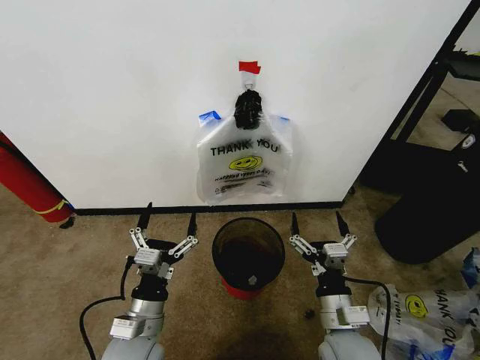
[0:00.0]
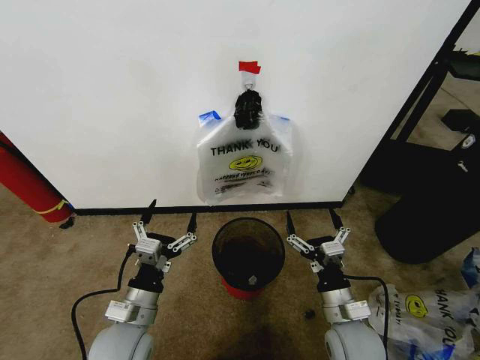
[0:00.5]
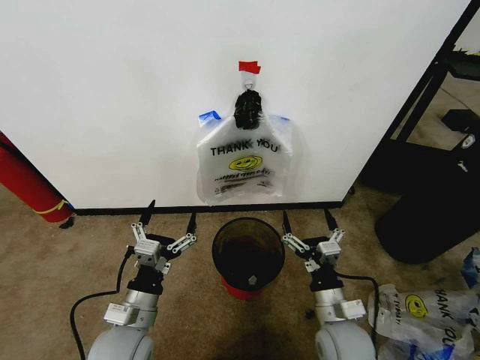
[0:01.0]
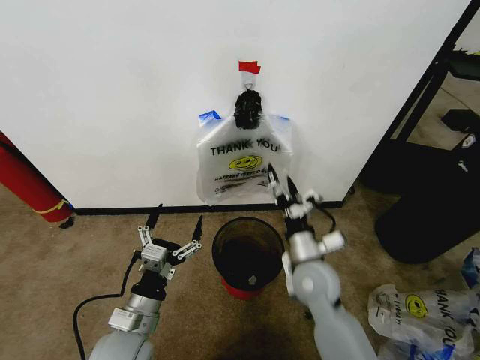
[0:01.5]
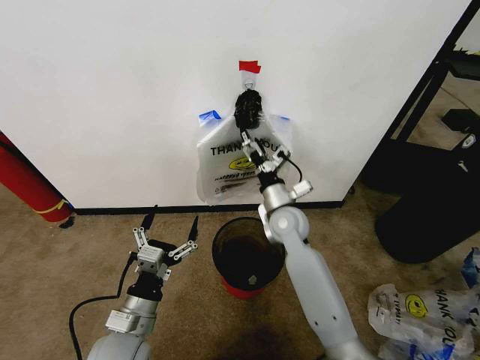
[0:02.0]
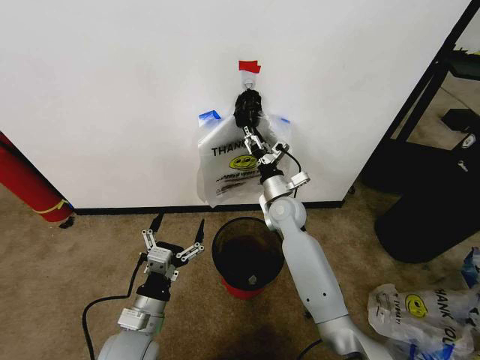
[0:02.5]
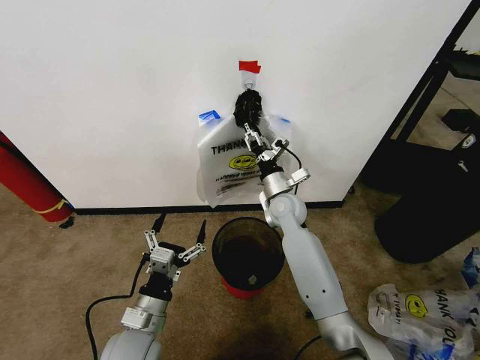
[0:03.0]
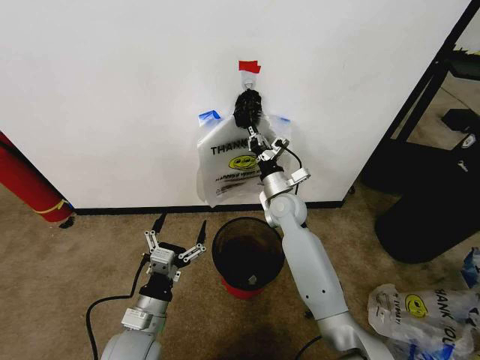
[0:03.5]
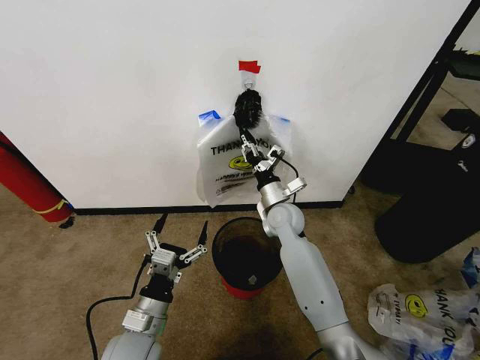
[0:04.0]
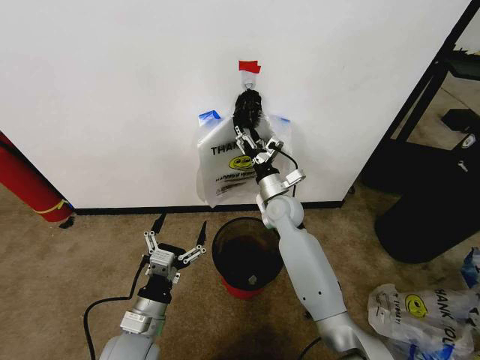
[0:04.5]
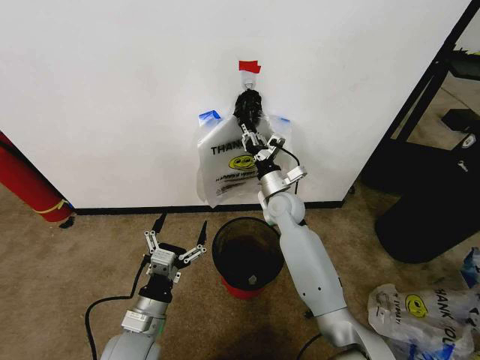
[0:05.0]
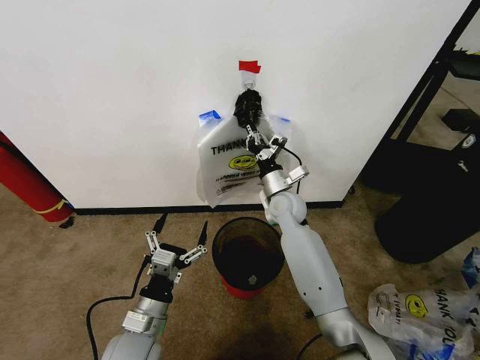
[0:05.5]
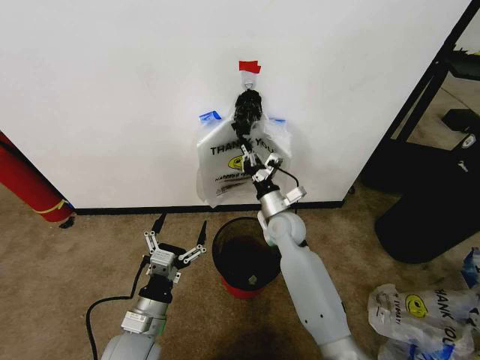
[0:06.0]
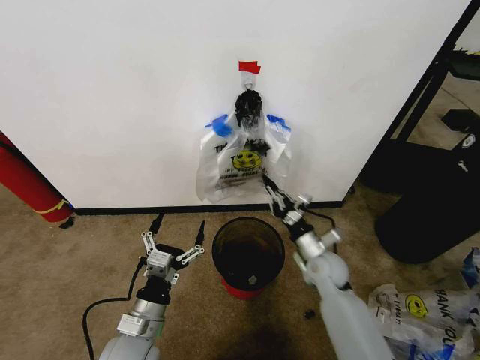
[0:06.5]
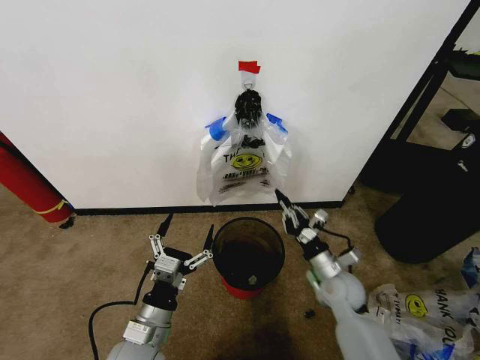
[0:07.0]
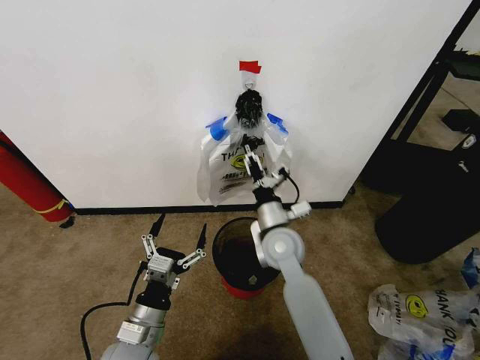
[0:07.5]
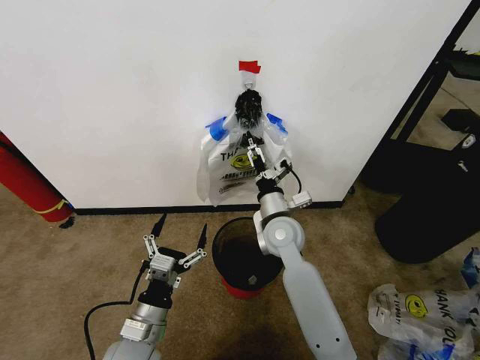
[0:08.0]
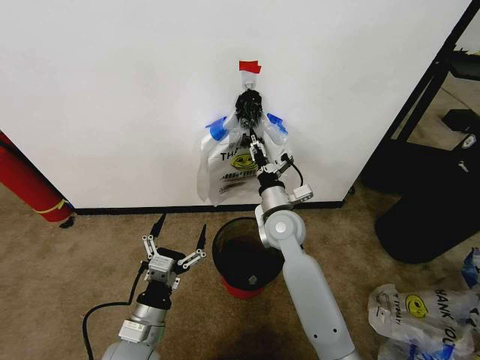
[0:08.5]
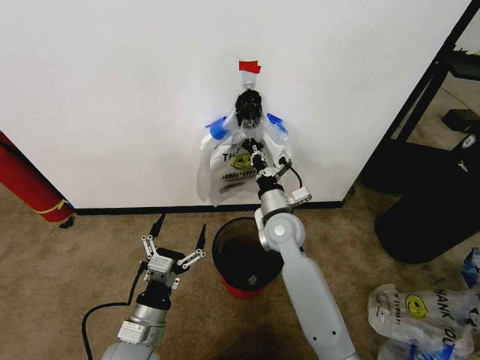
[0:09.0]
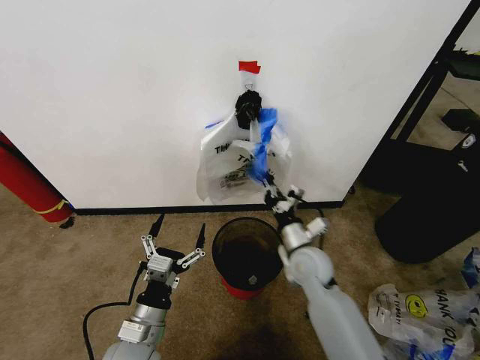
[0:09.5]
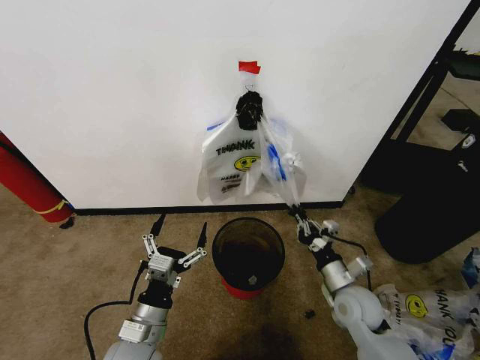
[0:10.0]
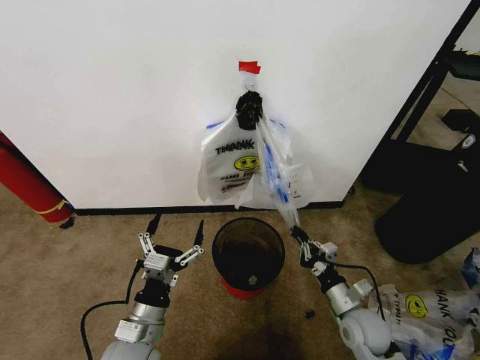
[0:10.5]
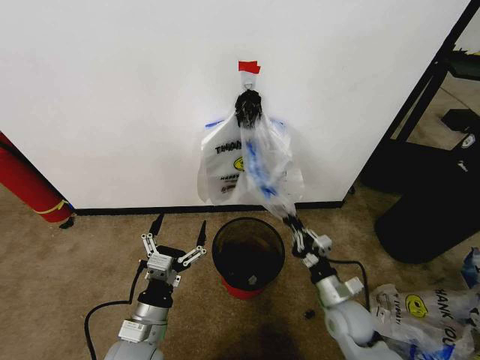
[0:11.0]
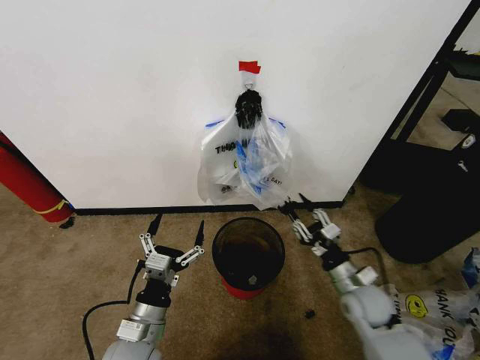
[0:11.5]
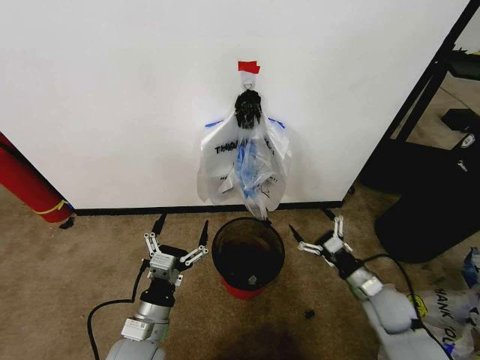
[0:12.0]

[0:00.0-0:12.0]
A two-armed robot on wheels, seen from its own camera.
Task of the whole recording: Pick up the garbage bag from the wall and place it over the trash bin.
0:02.0 to 0:04.0: The right gripper closes its fingers.
0:04.0 to 0:06.0: The right gripper opens, then closes once more.
0:06.0 to 0:08.0: The right gripper reaches approximately 10 cm to the right, then returns, and opens its fingers.
0:08.0 to 0:10.0: The right gripper heads to the right, backward and downward, covering some 25 cm, and closes.
0:10.0 to 0:12.0: The right gripper shifts some 5 cm to the right, and opens.

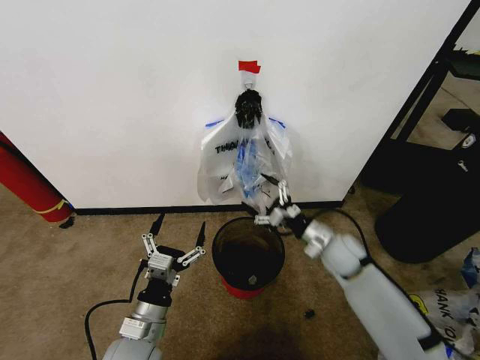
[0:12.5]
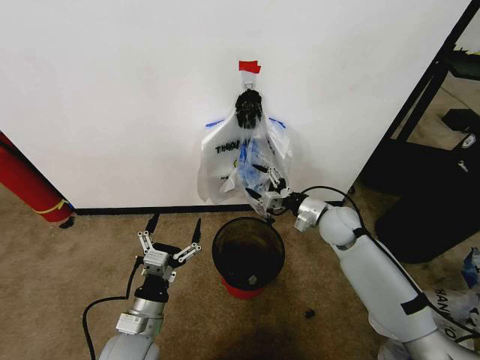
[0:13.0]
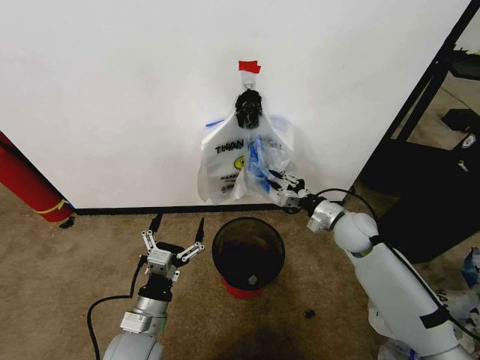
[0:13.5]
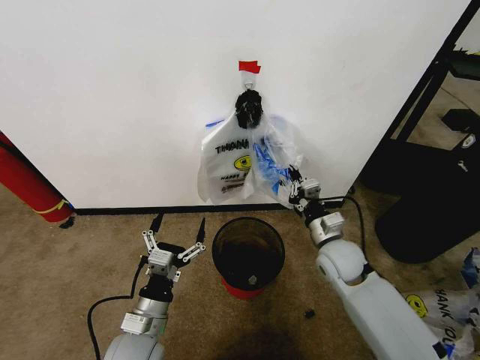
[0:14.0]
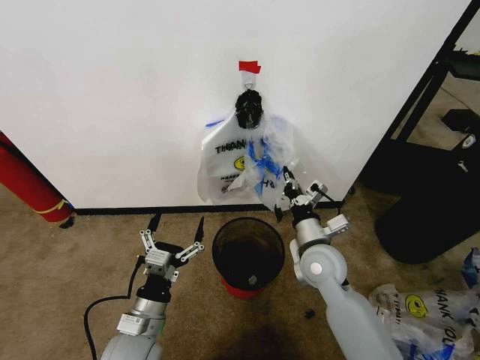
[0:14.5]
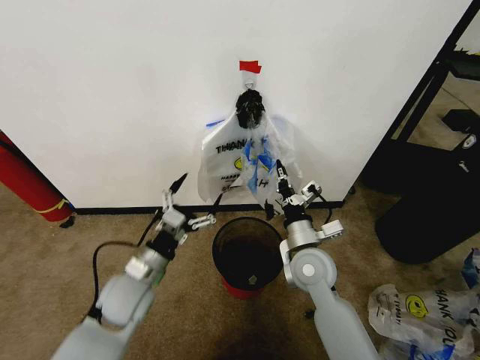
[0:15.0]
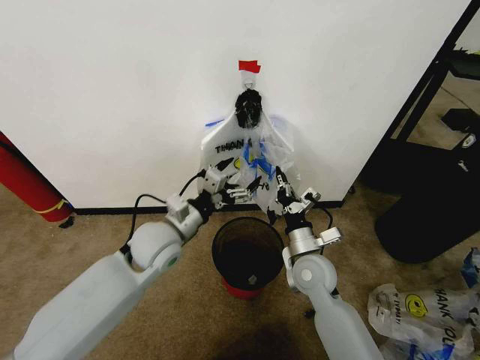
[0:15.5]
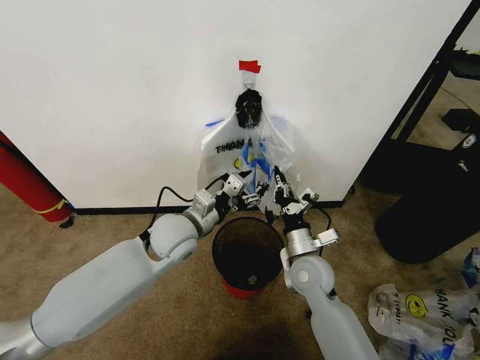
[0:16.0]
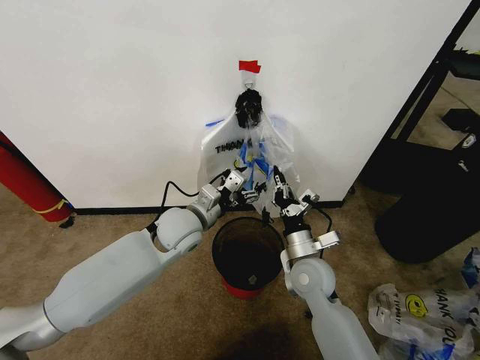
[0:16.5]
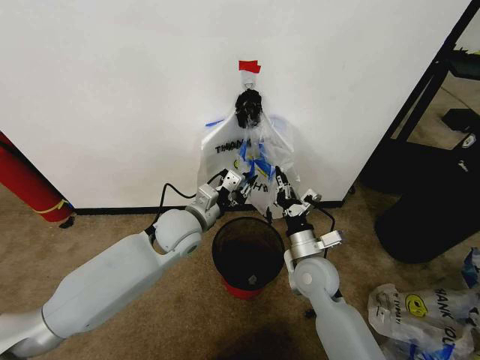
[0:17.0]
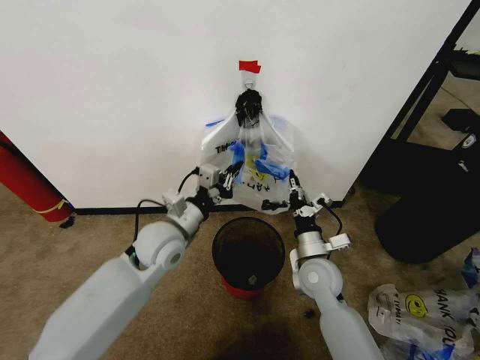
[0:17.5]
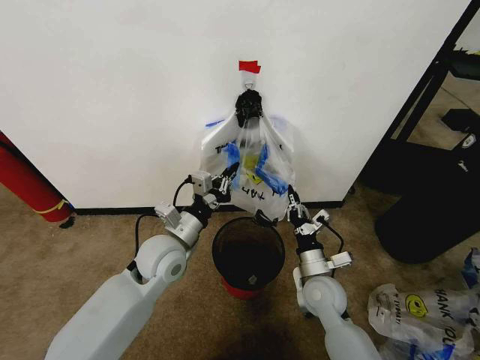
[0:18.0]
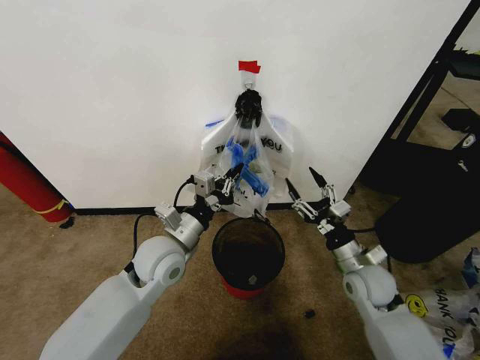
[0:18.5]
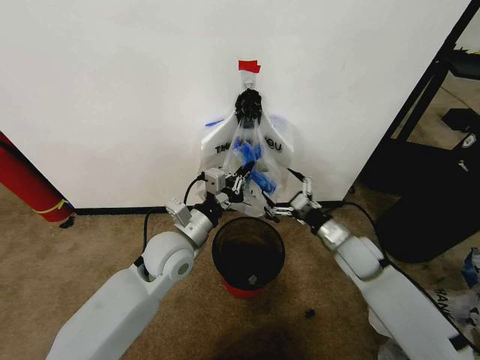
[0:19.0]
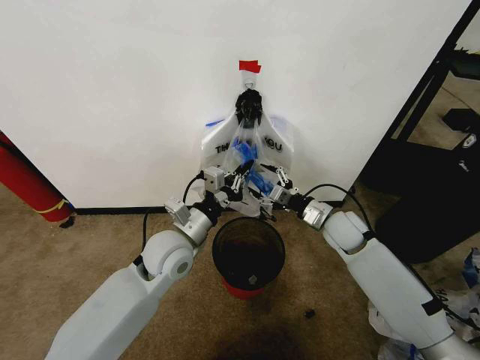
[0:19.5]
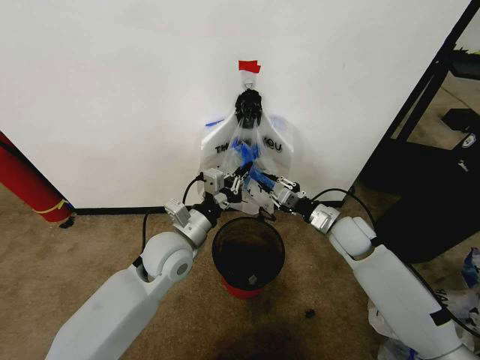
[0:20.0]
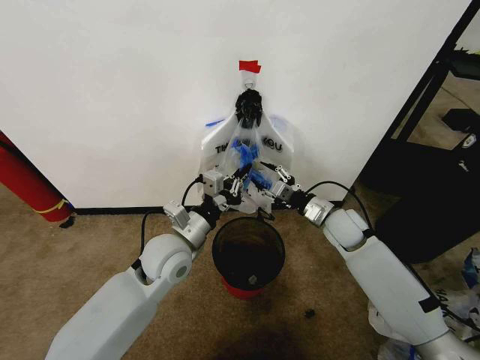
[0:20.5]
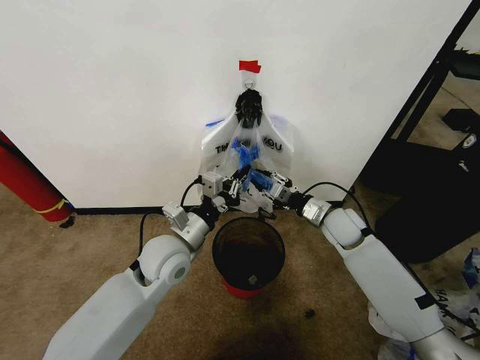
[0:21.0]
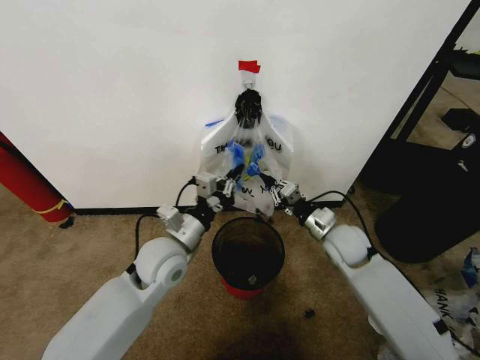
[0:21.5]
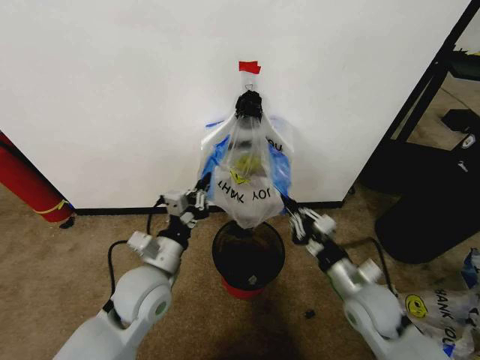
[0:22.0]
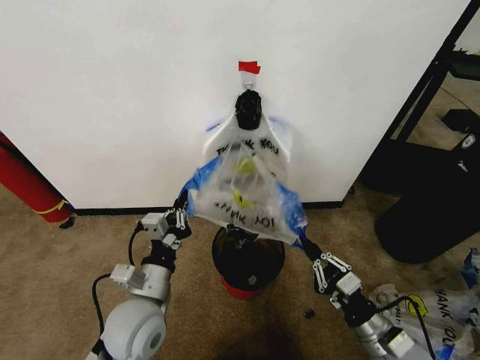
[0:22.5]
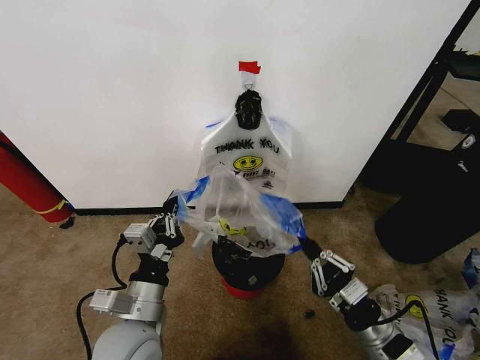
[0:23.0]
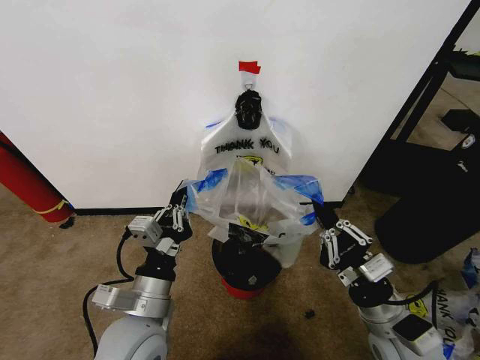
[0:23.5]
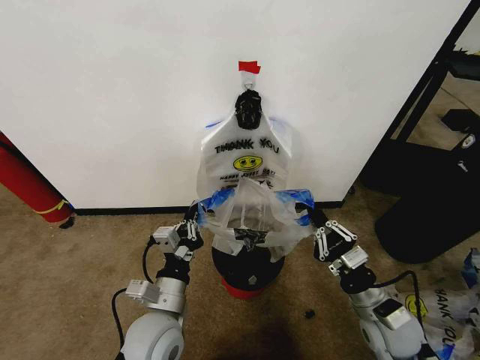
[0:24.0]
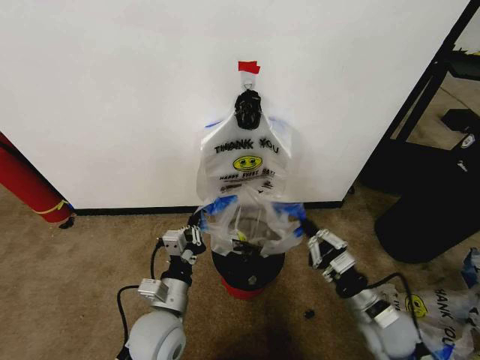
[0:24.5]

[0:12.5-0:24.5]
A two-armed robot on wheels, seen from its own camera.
Task of the whole recording: Pick up the garbage bag from the wall and place it over the trash bin.
0:12.5 to 0:14.5: The right gripper moves to the left and backward, some 10 cm, and closes its fingers.
0:14.5 to 0:16.5: The left gripper is displaced forward and upward by approximately 25 cm.
0:16.5 to 0:18.5: The right gripper shifts about 10 cm to the right, and opens, while the left gripper travels backward by approximately 5 cm, and closes its fingers.
0:18.5 to 0:20.5: The right gripper moves forward, roughly 15 cm, and opens, then closes again.
0:20.5 to 0:22.5: The left gripper shifts roughly 10 cm backward; the right gripper is displaced backward by roughly 25 cm, and closes.
0:22.5 to 0:24.5: The right gripper is displaced forward by approximately 5 cm. Meanwhile the left gripper heads downward, covering roughly 5 cm.

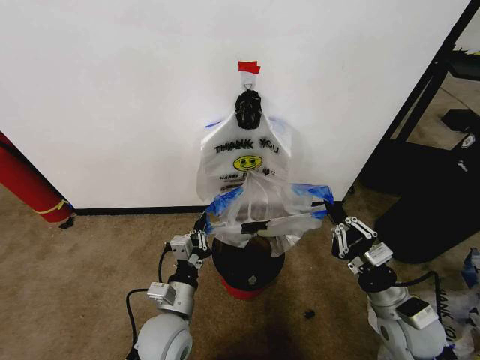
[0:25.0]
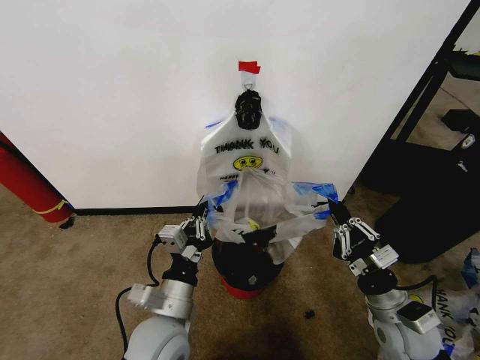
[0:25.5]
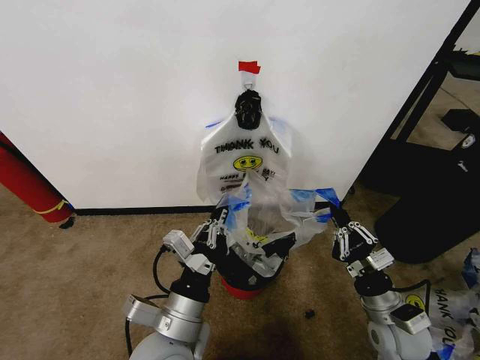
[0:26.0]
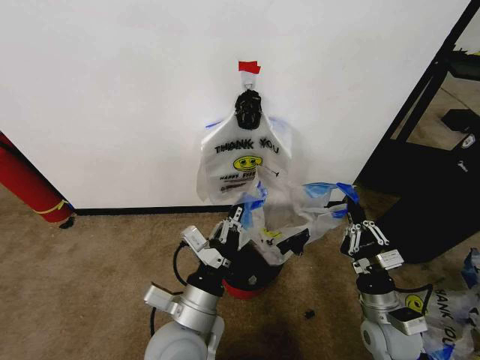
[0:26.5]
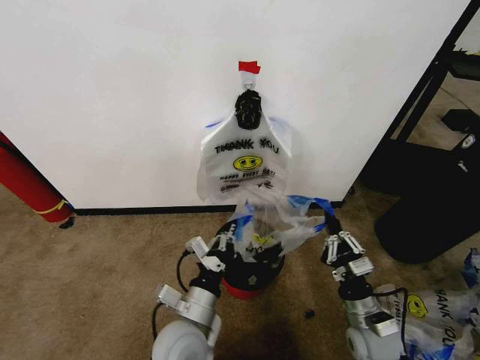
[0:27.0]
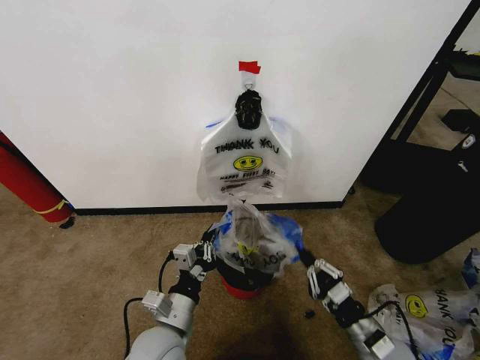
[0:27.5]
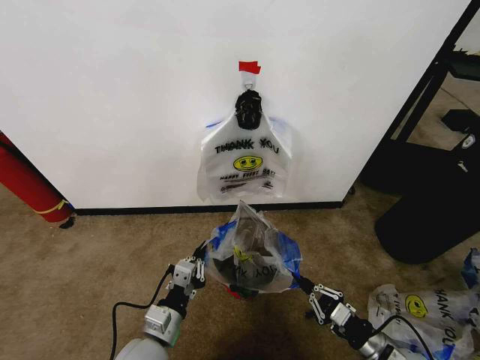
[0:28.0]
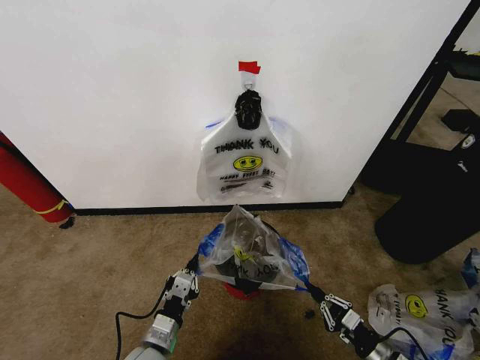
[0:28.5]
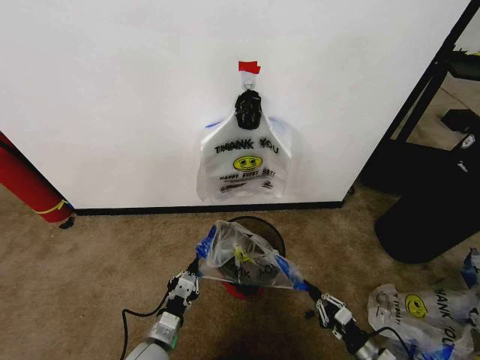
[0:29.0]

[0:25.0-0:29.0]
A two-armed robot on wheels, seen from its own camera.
Task of the whole recording: Pick up the garbage bag from the wall and place it over the trash bin.
0:25.0 to 0:27.0: The right gripper shifts some 10 cm downward, while the left gripper goes upward and returns, some 10 cm each way.
0:27.0 to 0:29.0: The right gripper moves downward, to the right and backward, about 15 cm; the left gripper is displaced downward and to the left by roughly 15 cm.
